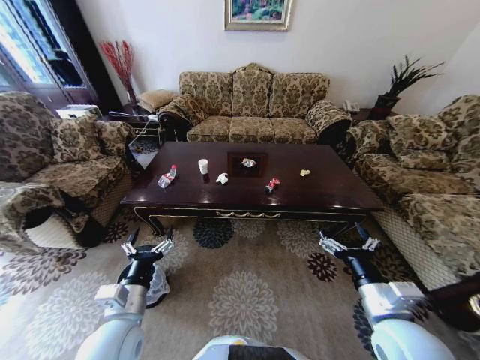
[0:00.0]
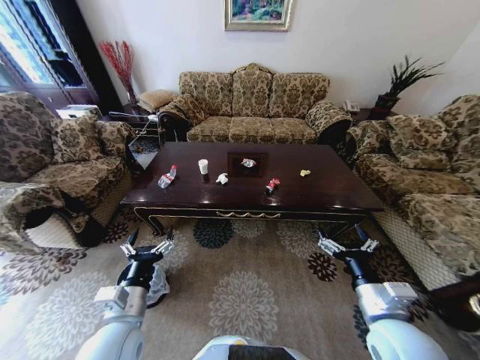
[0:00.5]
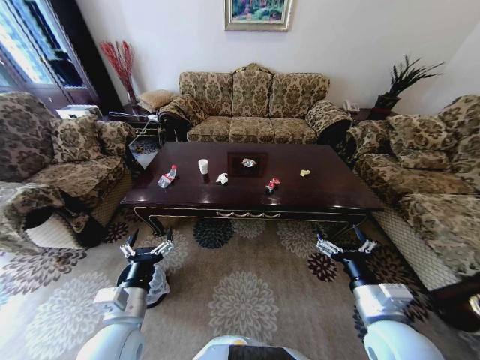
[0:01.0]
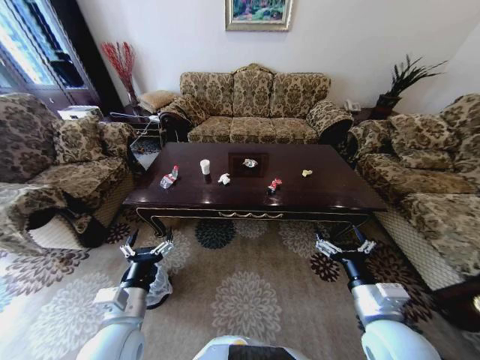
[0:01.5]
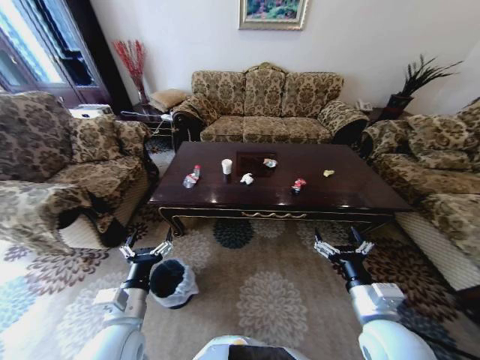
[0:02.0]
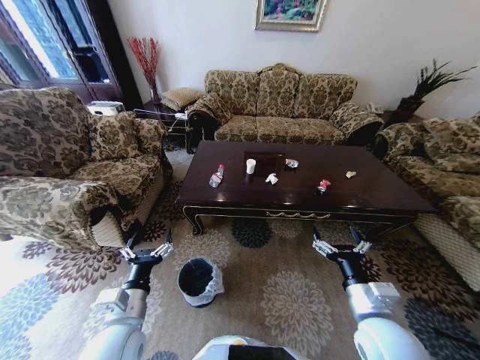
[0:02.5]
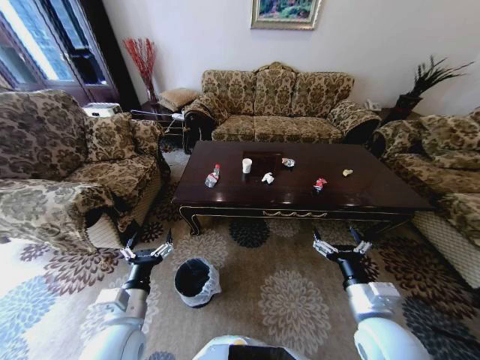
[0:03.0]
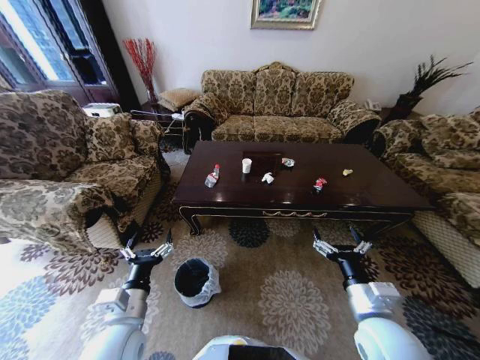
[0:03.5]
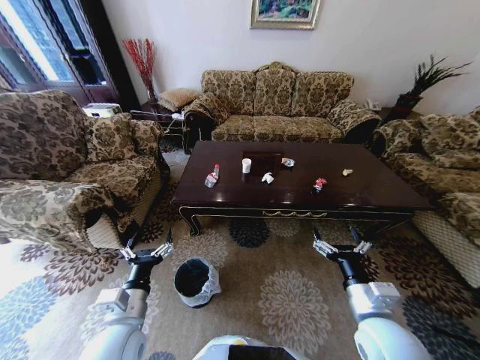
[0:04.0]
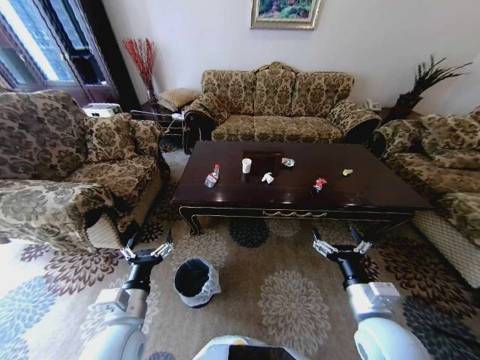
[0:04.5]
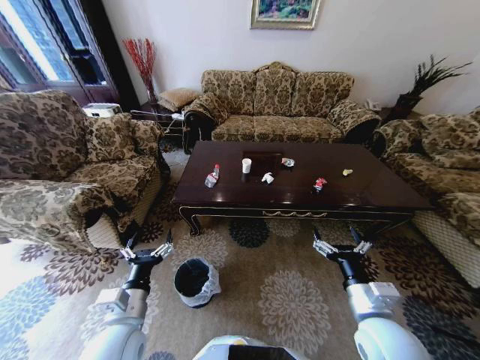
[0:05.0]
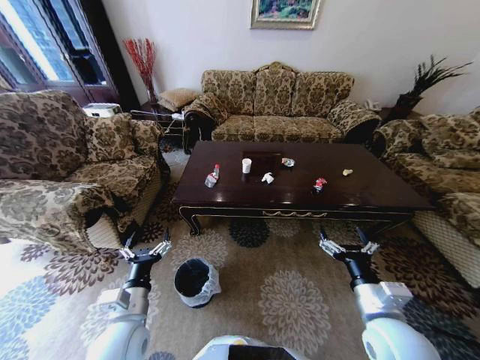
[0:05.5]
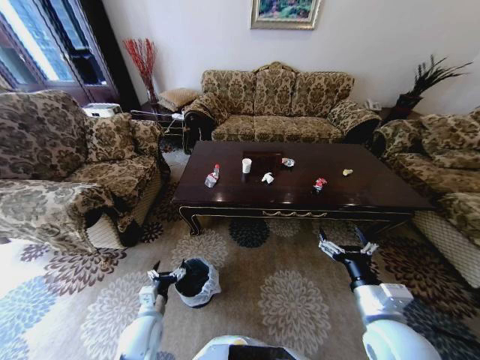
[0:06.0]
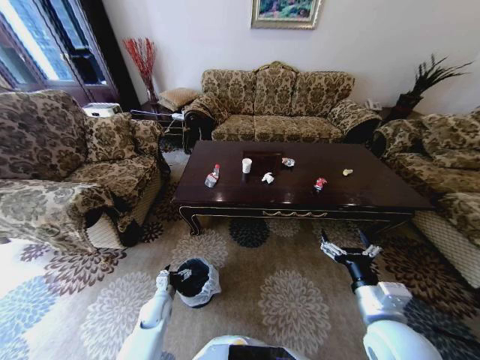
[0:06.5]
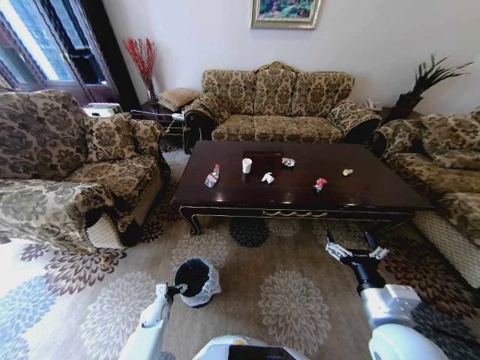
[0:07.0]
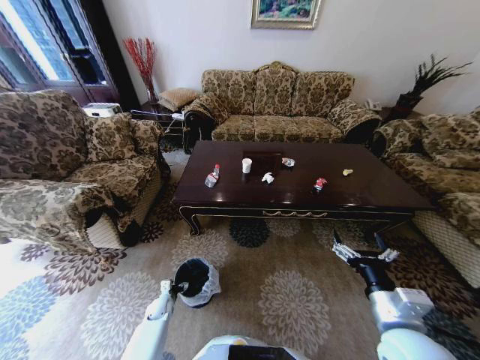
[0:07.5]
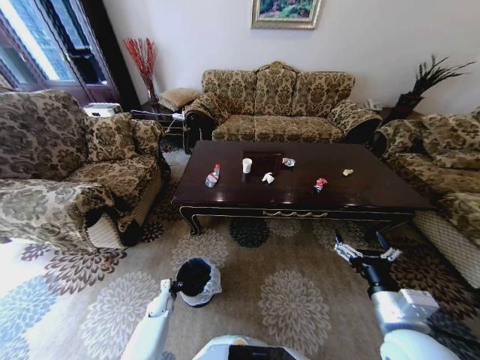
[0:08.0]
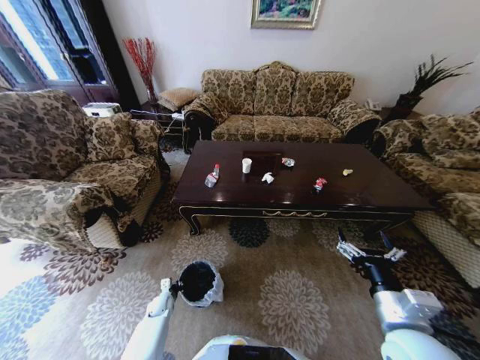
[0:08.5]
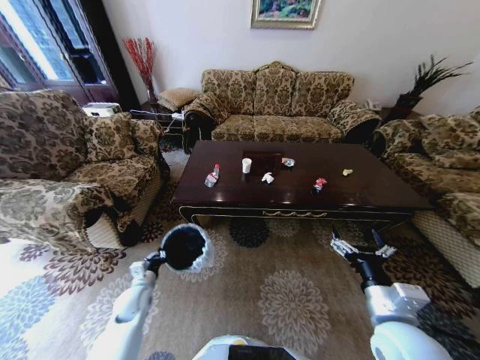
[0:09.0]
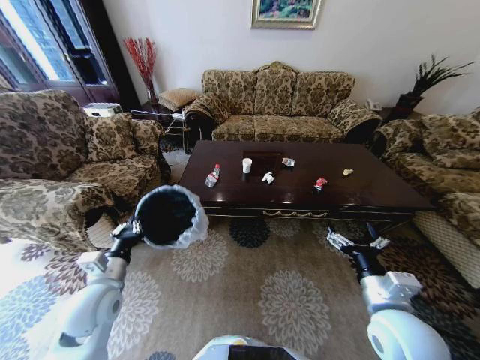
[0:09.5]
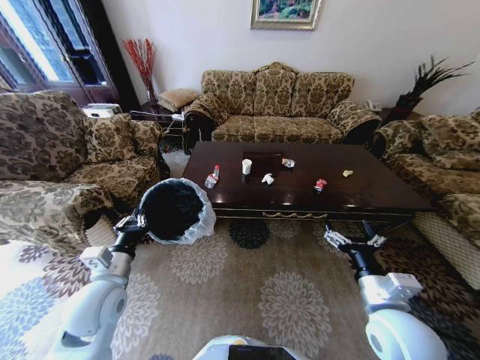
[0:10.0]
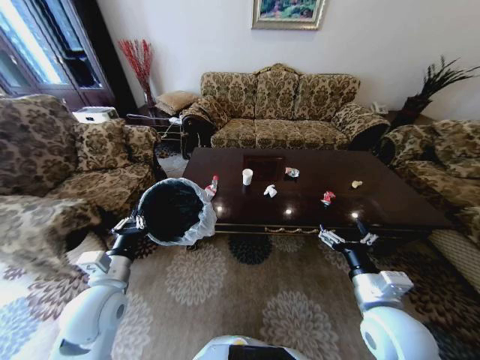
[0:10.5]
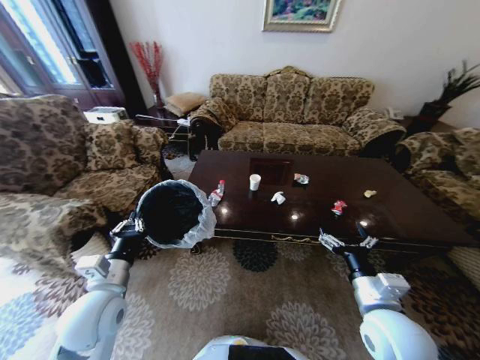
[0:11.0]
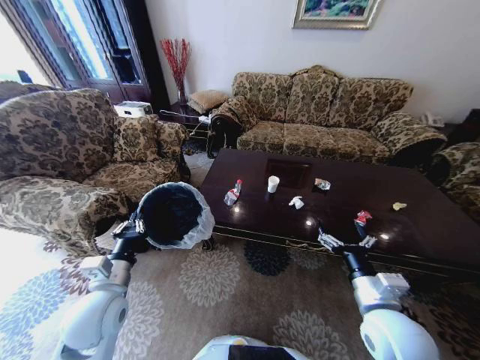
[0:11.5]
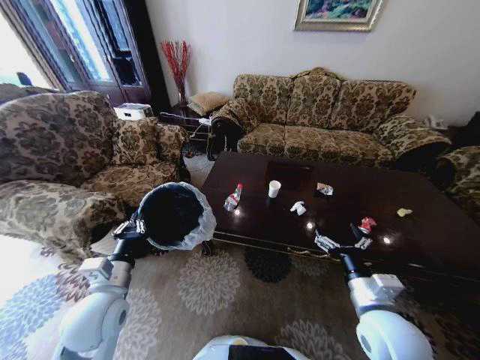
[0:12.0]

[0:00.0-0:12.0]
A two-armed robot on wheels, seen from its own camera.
Task of the whole recording: Move to the front of the table and place the trash on the table into the trash bin.
0:04.0 to 0:06.0: The left gripper heads downward, covering about 15 cm.
0:06.0 to 0:08.0: The left gripper heads downward and forward, covering about 25 cm, and closes.
0:08.0 to 0:10.0: The left gripper shifts some 40 cm upward.

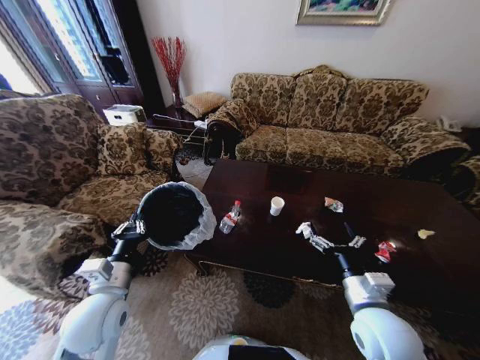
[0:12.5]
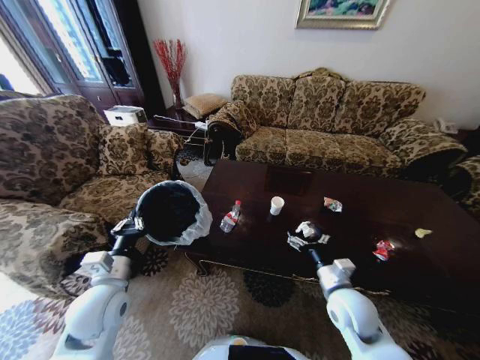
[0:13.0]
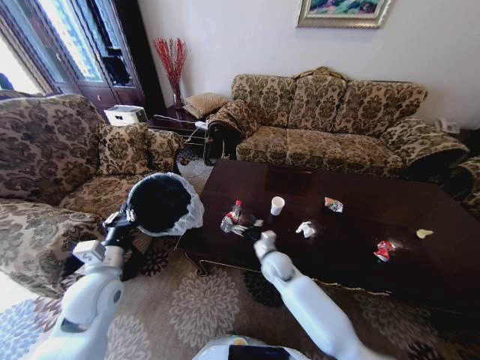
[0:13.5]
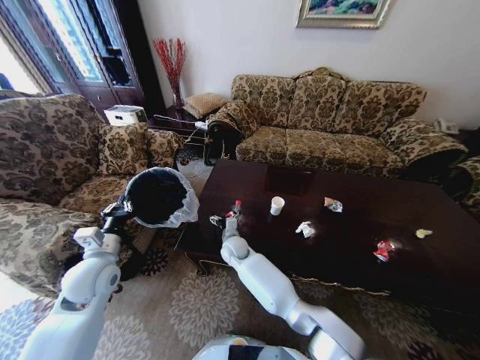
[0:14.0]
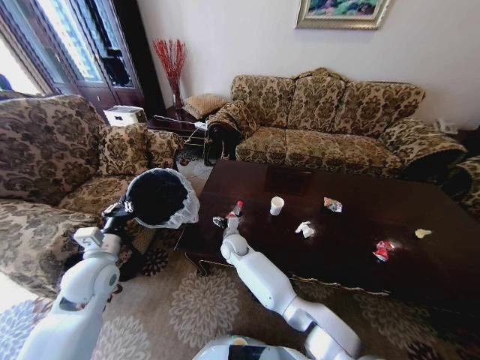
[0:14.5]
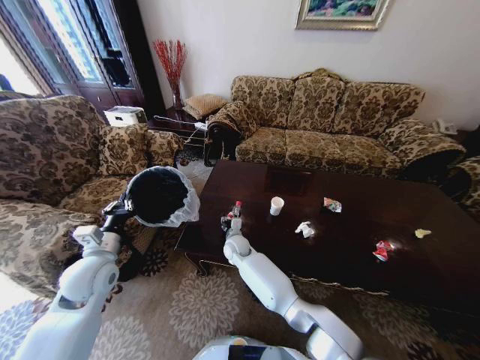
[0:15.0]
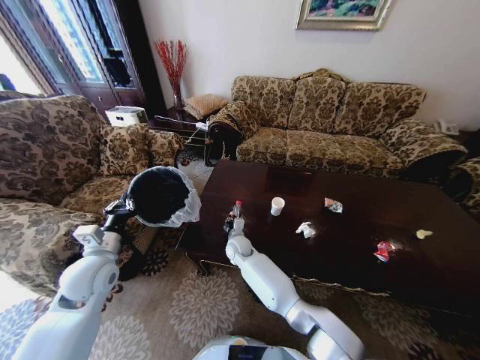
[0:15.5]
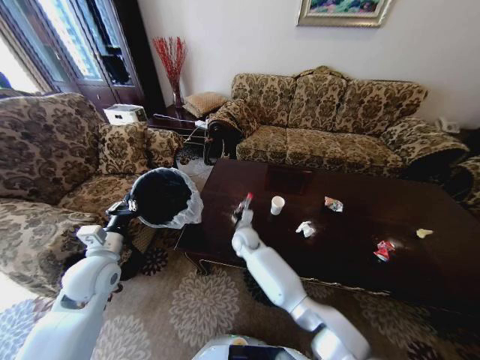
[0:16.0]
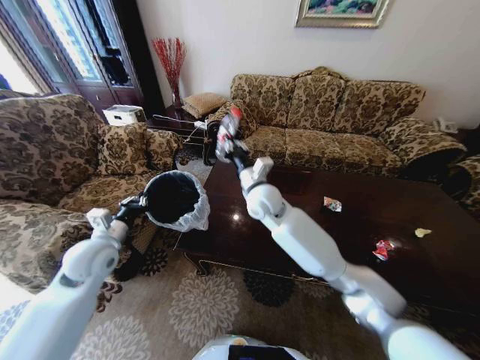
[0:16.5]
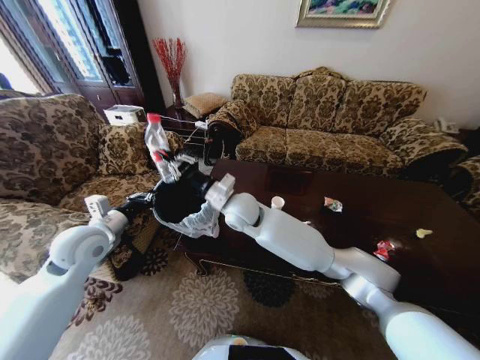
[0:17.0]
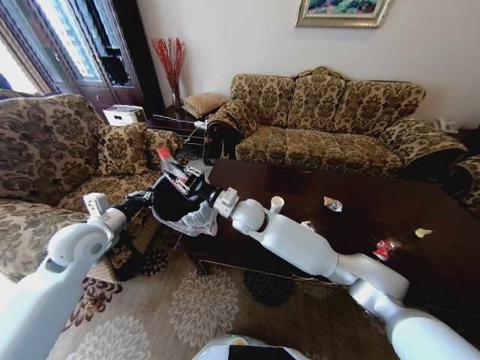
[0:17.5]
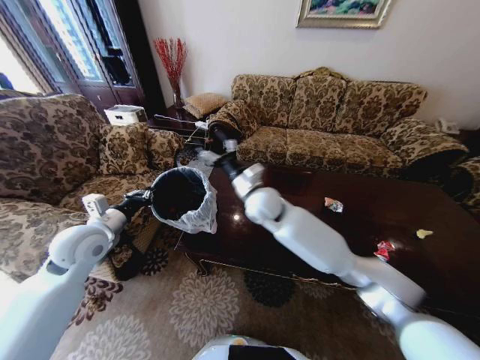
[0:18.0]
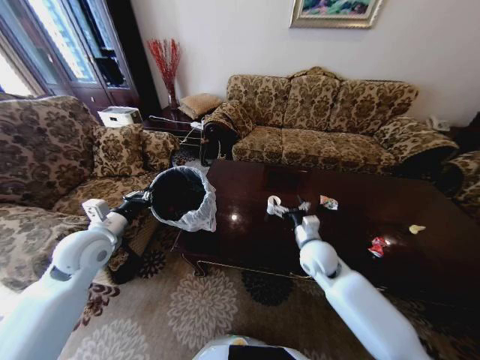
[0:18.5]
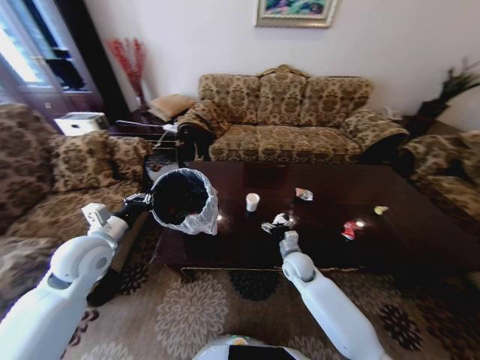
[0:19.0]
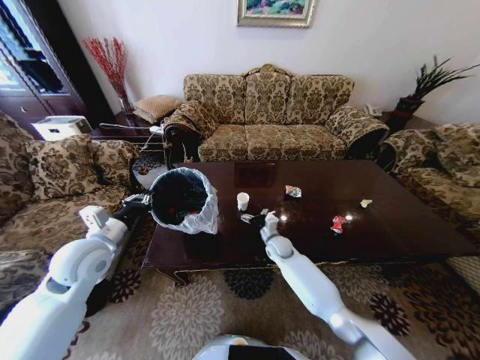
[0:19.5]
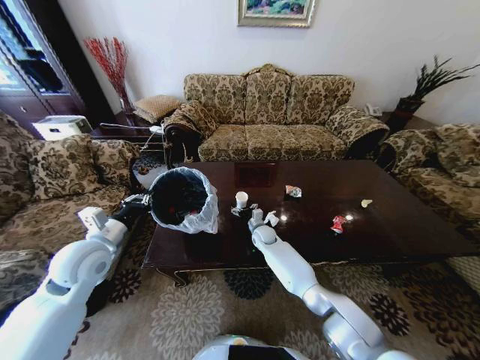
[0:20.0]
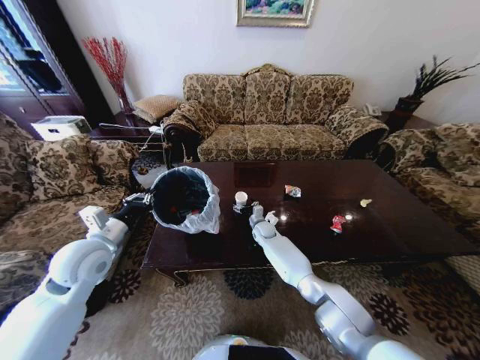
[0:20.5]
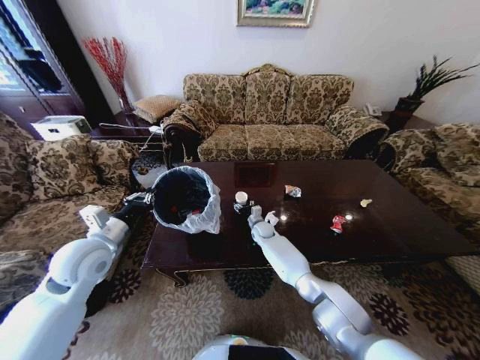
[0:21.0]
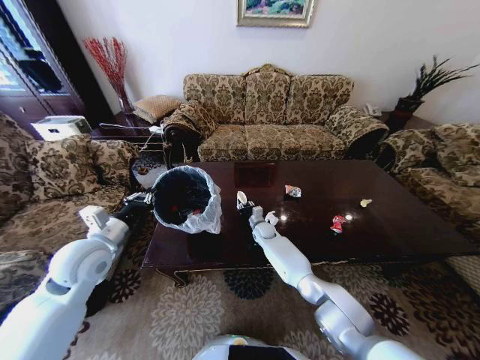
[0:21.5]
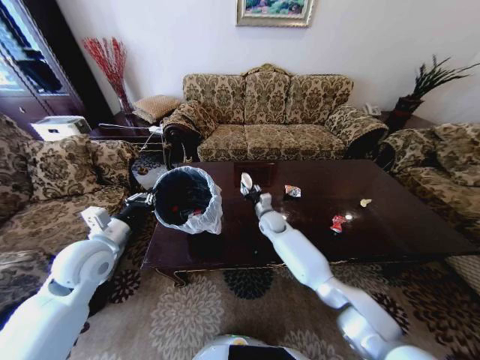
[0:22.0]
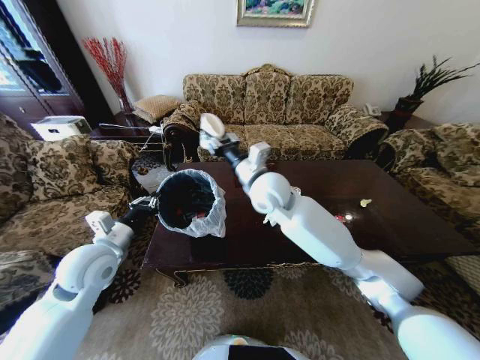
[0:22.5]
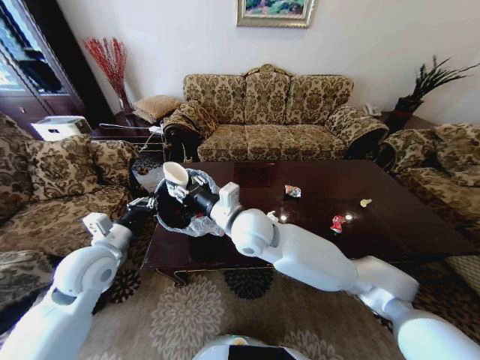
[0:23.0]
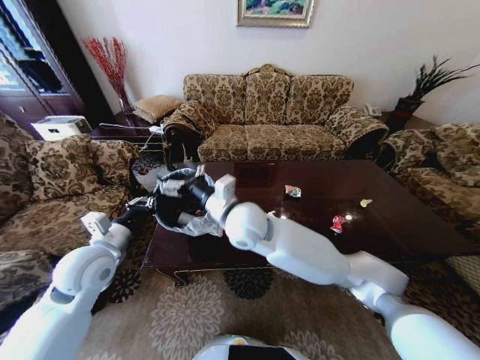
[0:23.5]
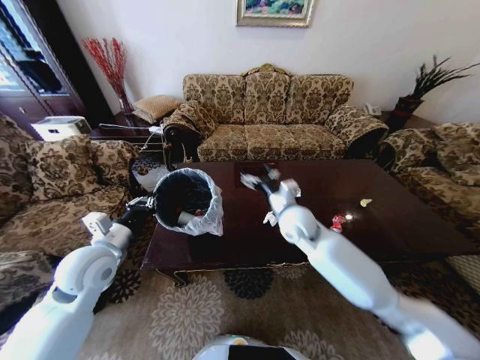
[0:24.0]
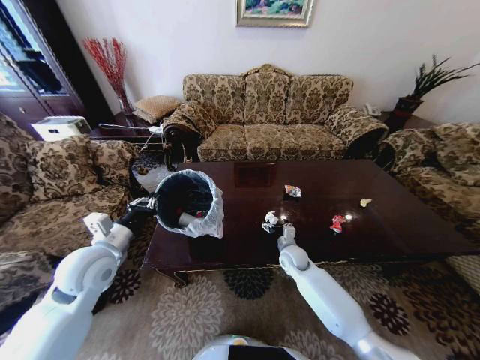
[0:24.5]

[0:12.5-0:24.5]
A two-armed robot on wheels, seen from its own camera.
Task of the whole recording: Move to the front of the table and place the trash on the table into the trash bin.
0:12.5 to 0:14.5: The left gripper heads forward and to the left, covering approximately 10 cm; the right gripper heads to the left, forward and downward, covering about 40 cm.
0:14.5 to 0:16.5: The right gripper goes some 25 cm upward, and closes its fingers.
0:16.5 to 0:18.5: The right gripper travels to the right, downward and backward by approximately 25 cm, and opens up.
0:18.5 to 0:20.5: The right gripper moves forward, downward and to the left, approximately 25 cm.
0:20.5 to 0:22.5: The right gripper heads upward, covering some 35 cm, and closes.
0:22.5 to 0:24.5: The right gripper is displaced downward and to the right by roughly 35 cm, and opens up.

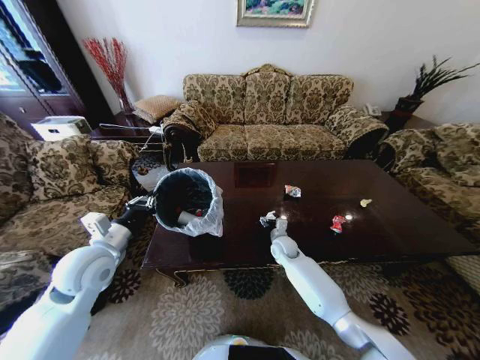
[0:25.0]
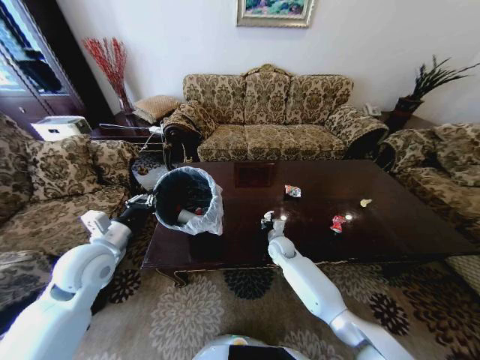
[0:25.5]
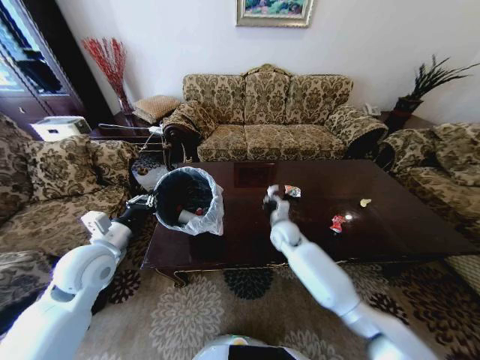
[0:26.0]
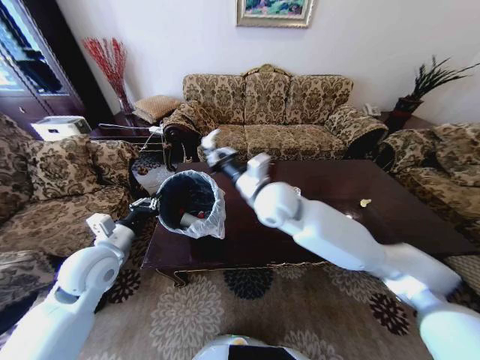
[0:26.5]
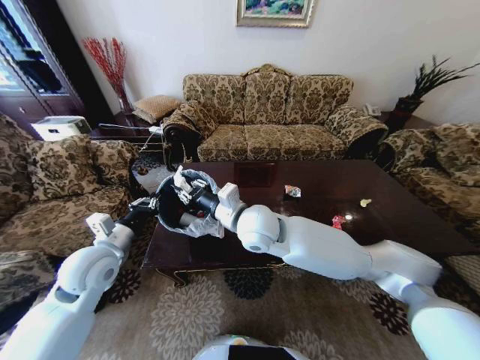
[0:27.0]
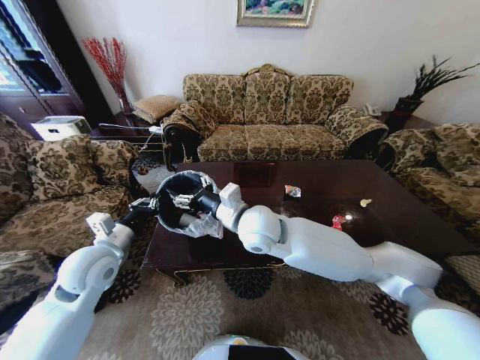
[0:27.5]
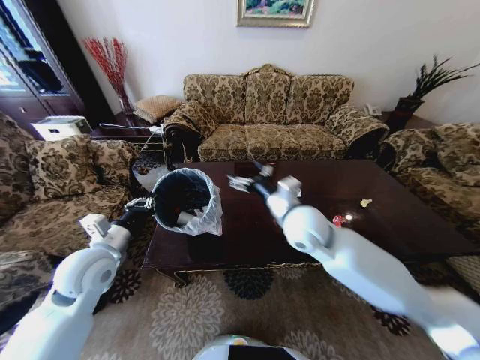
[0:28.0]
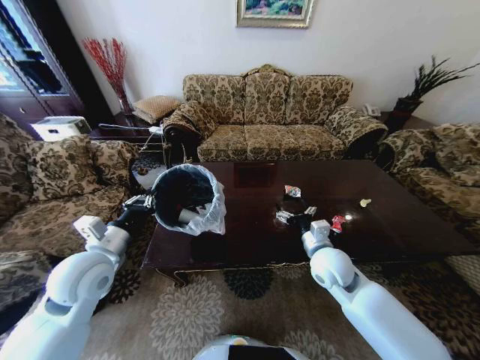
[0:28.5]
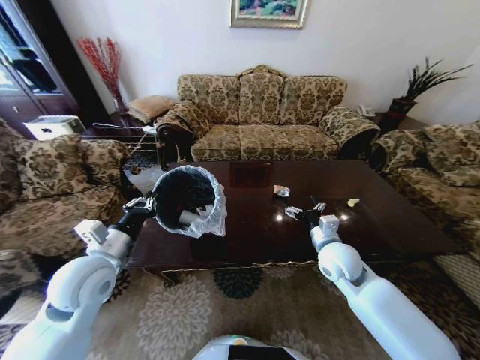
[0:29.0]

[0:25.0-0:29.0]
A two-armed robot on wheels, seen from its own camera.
Task of the whole recording: Move to the front of the table and place the trash on the table into the trash bin.
0:25.0 to 0:27.0: The right gripper is displaced upward and to the left by roughly 30 cm, and closes its fingers.
0:27.0 to 0:29.0: The right gripper moves to the right and downward, about 25 cm, and opens its fingers.
